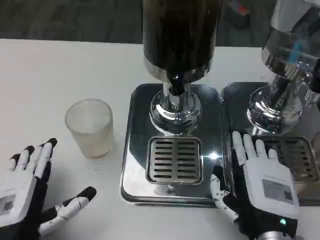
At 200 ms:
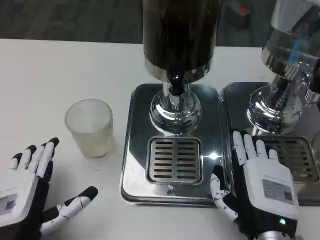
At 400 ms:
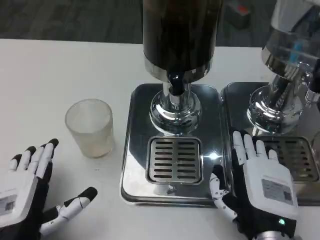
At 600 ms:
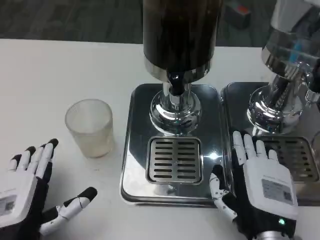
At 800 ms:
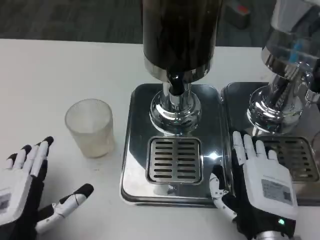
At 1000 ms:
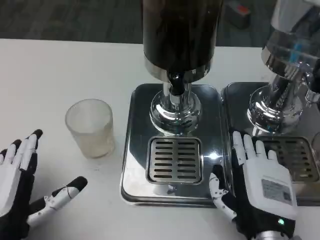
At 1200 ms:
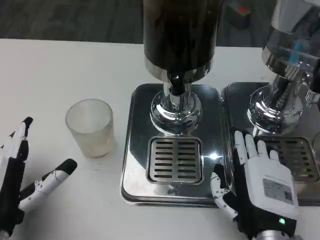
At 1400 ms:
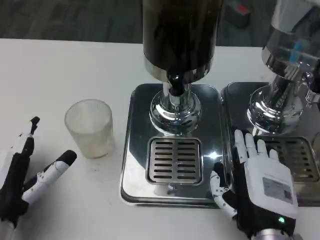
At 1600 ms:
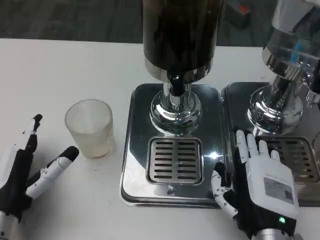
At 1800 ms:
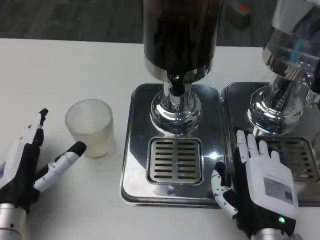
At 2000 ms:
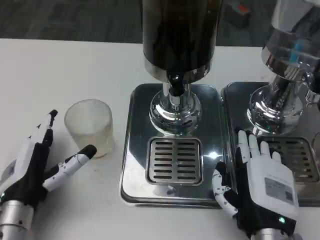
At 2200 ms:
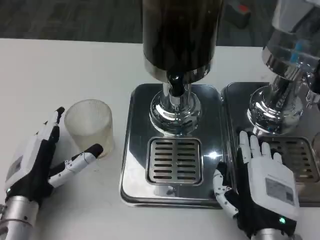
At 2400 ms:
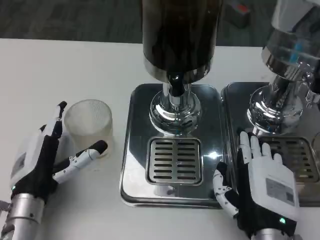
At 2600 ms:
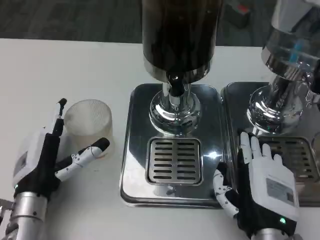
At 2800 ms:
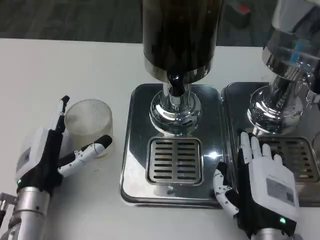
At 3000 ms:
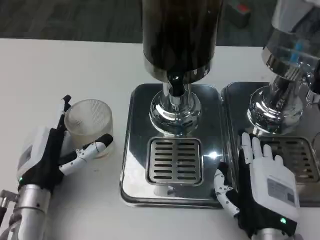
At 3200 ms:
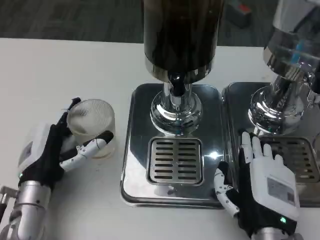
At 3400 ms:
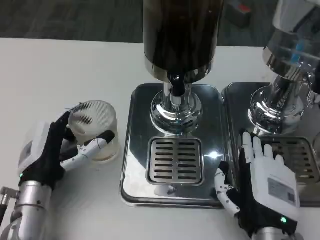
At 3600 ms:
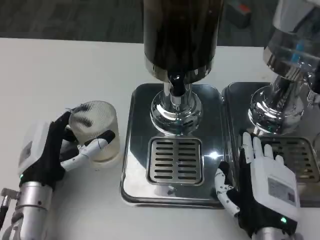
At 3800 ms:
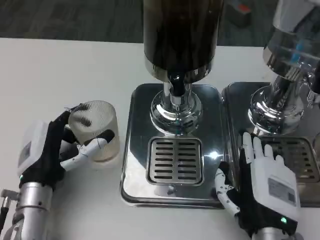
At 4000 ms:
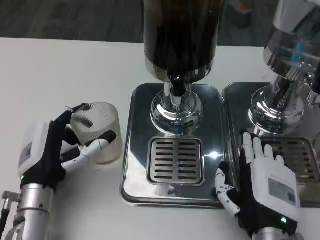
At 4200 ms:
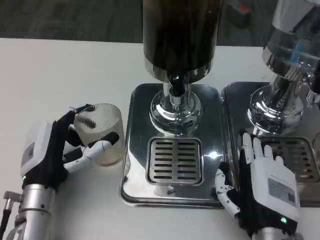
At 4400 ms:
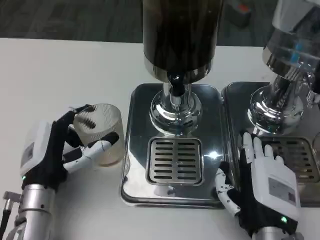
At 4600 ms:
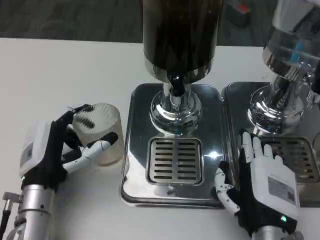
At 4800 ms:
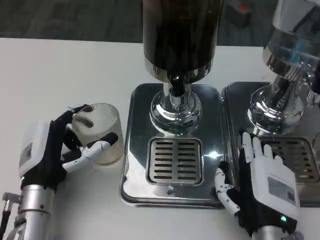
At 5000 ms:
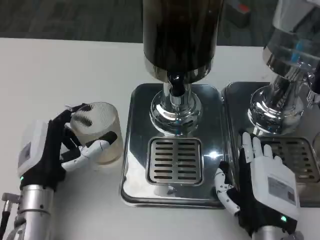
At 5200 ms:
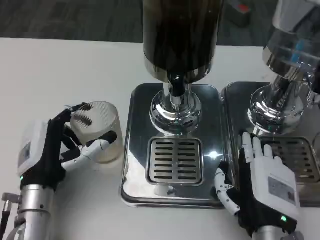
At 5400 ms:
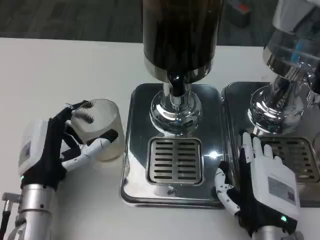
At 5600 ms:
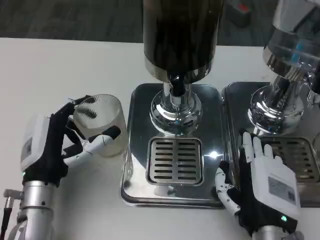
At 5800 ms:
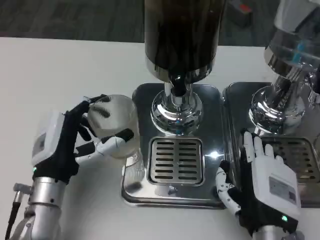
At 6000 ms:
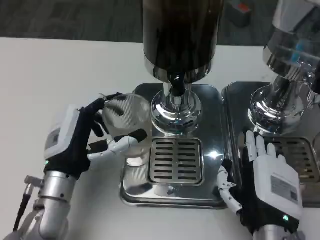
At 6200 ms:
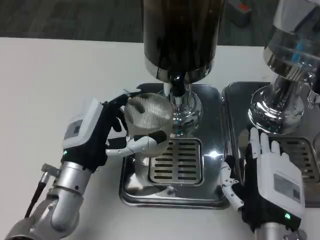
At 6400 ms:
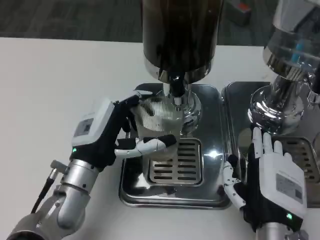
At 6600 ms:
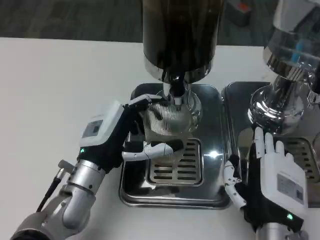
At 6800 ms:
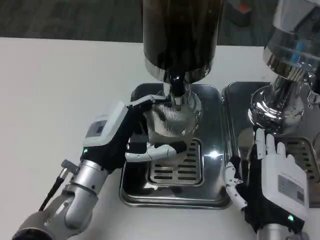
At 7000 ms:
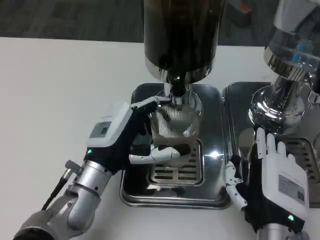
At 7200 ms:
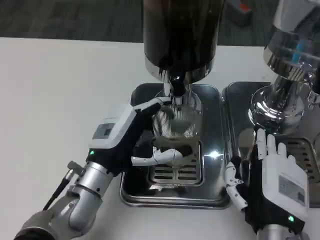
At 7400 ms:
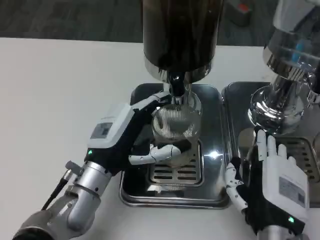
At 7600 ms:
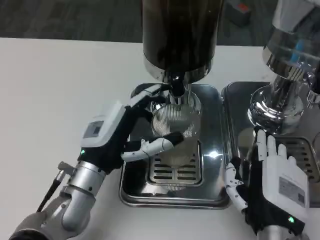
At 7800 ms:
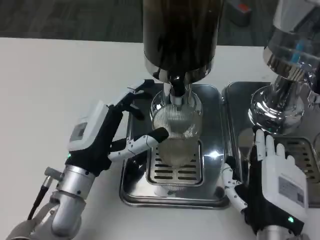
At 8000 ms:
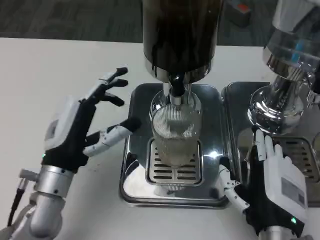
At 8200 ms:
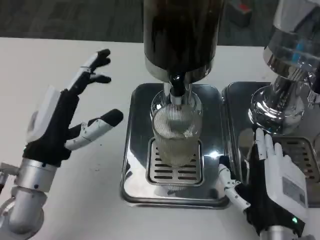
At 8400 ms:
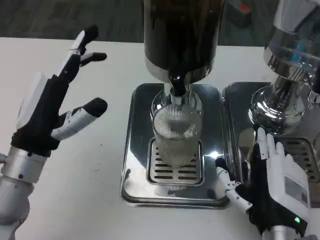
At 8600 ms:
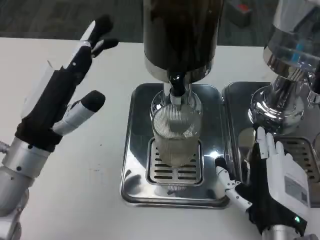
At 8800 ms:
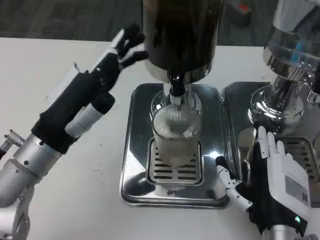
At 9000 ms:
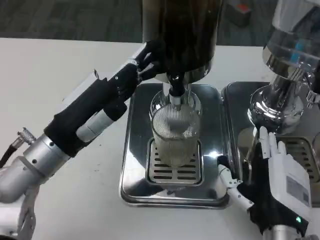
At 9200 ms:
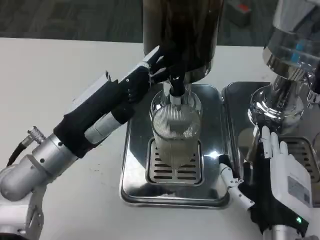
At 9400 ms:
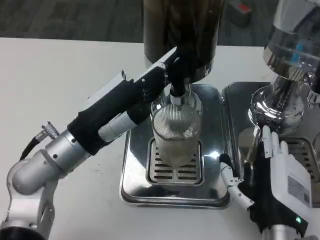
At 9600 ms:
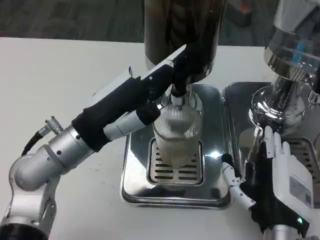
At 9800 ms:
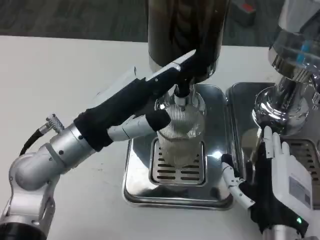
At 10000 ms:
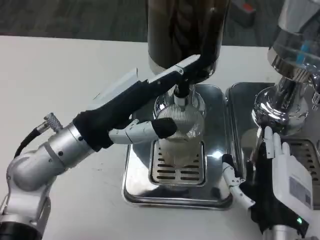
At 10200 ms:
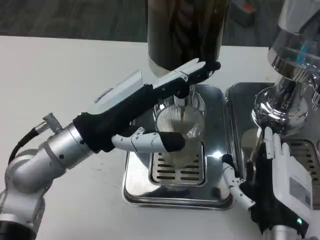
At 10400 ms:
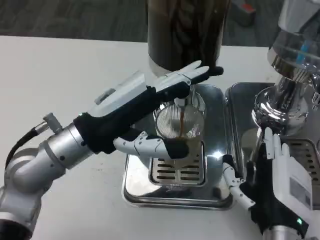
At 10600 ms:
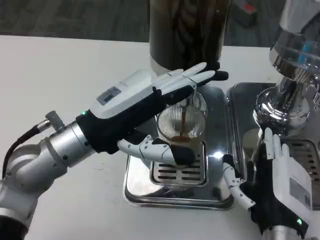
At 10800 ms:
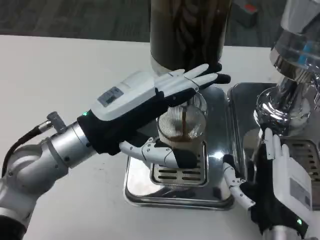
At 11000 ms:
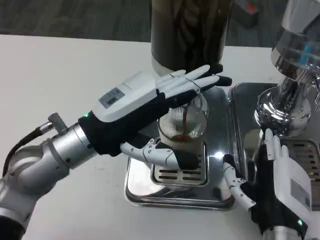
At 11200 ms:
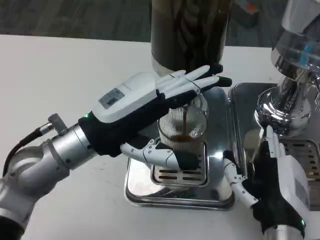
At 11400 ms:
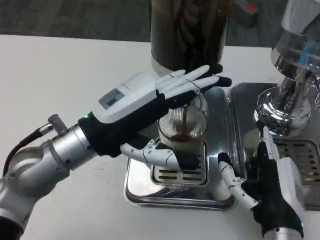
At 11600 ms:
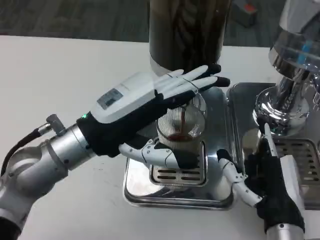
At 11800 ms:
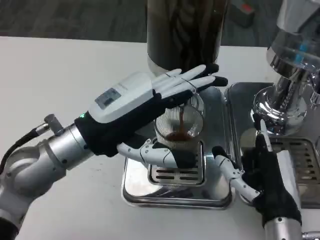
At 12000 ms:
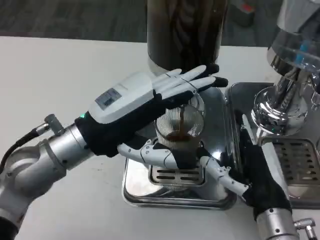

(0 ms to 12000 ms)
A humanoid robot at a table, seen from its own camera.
Task of the whole recording: Grasp the cup under the faucet to collect the drink, then remove the cup.
0 ms - 1600 ms: The left hand shifts by some 5 cm.
1600 ms - 3000 ms: The left hand ends up roughly 5 cm from where it was.
3000 ms - 4400 ms: The hands make only small movements.
7600 ms - 9000 ms: The left hand moves upward and to the left, approximately 10 cm.

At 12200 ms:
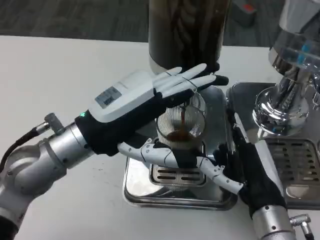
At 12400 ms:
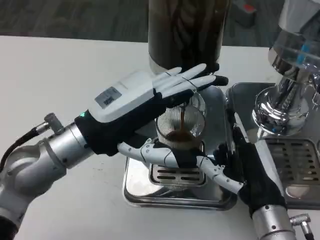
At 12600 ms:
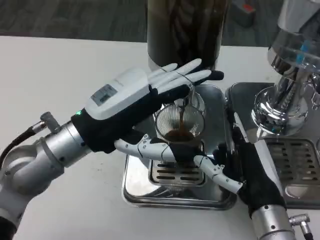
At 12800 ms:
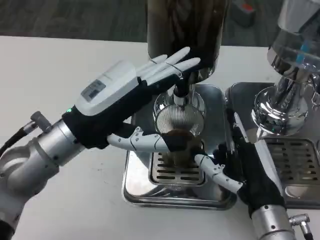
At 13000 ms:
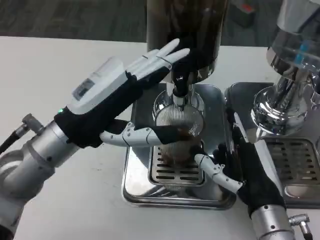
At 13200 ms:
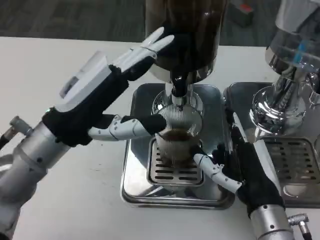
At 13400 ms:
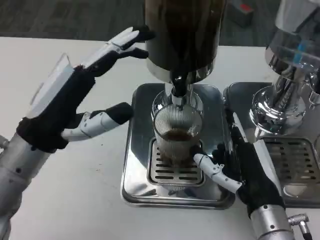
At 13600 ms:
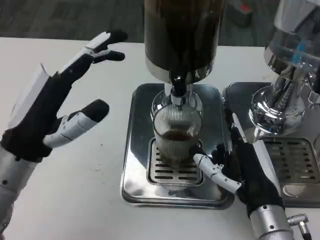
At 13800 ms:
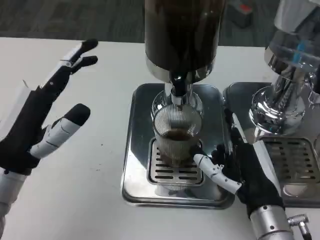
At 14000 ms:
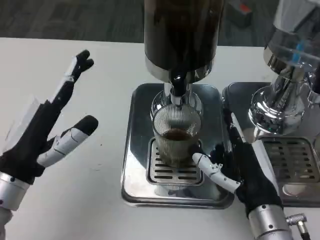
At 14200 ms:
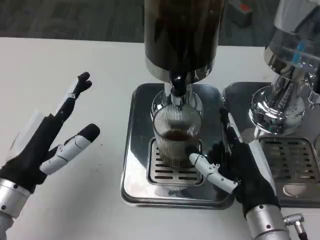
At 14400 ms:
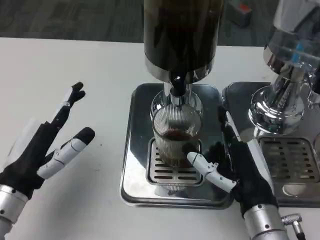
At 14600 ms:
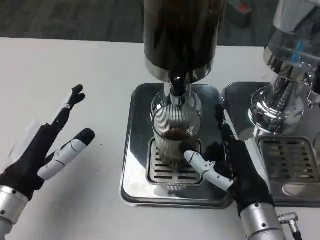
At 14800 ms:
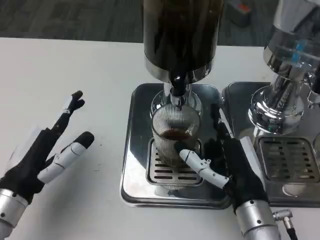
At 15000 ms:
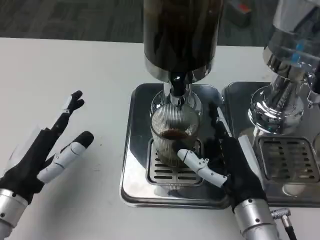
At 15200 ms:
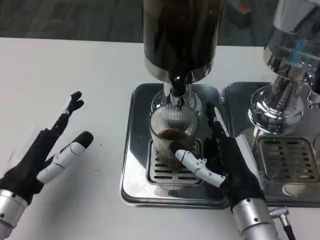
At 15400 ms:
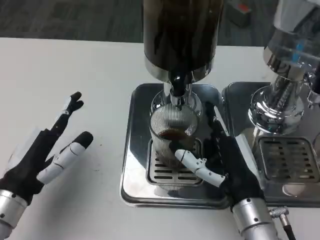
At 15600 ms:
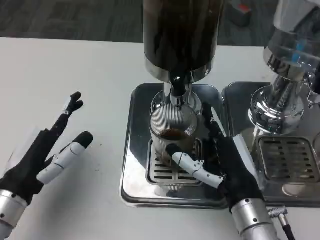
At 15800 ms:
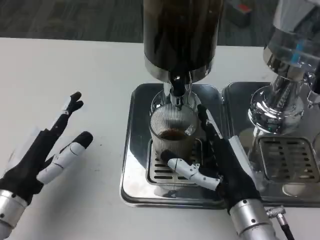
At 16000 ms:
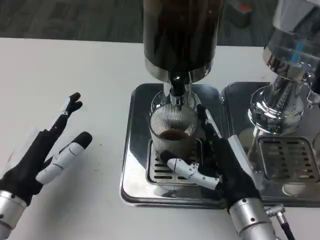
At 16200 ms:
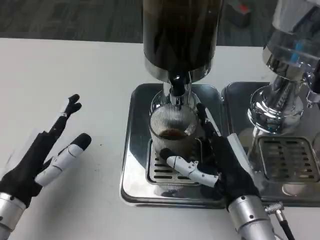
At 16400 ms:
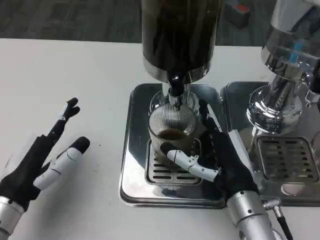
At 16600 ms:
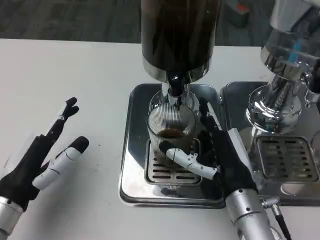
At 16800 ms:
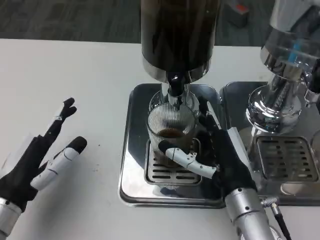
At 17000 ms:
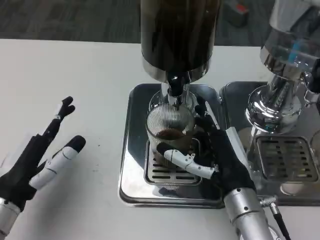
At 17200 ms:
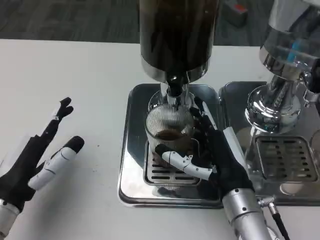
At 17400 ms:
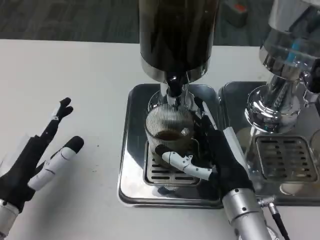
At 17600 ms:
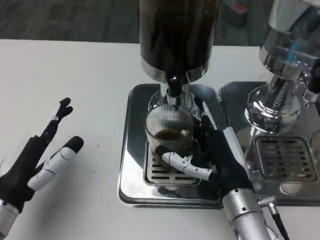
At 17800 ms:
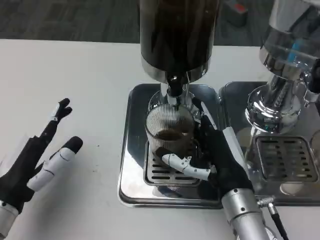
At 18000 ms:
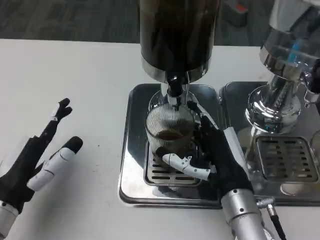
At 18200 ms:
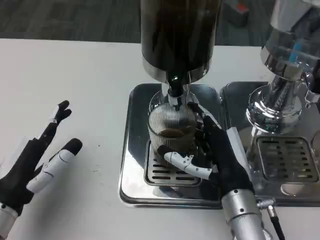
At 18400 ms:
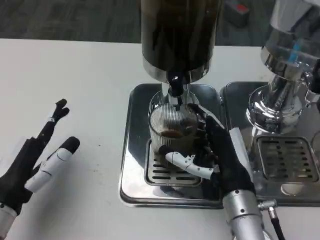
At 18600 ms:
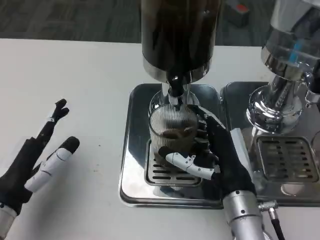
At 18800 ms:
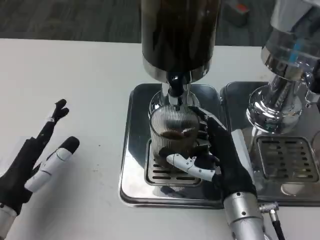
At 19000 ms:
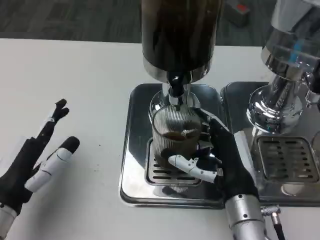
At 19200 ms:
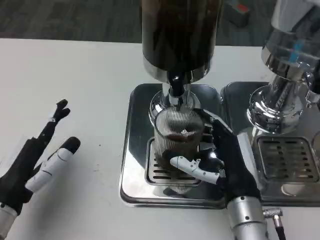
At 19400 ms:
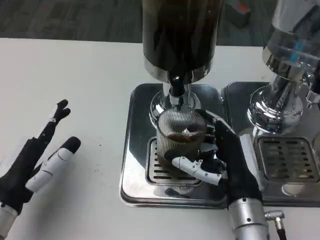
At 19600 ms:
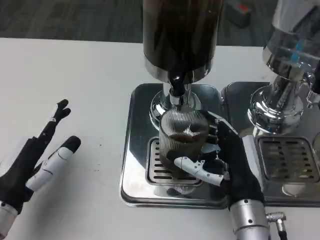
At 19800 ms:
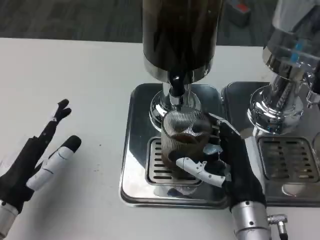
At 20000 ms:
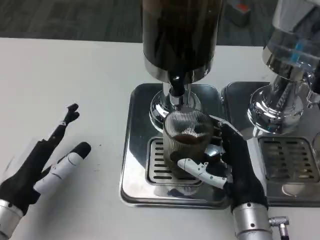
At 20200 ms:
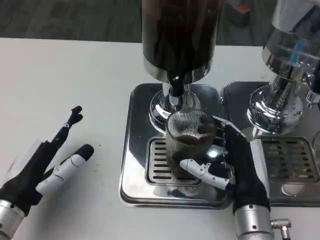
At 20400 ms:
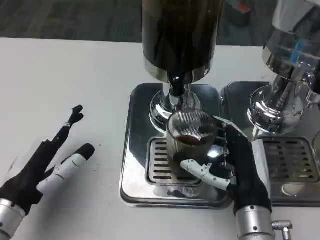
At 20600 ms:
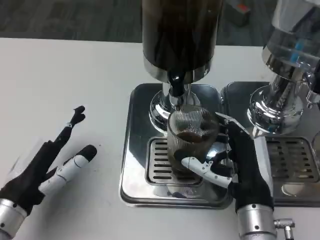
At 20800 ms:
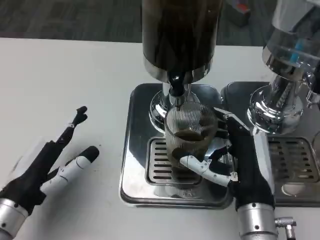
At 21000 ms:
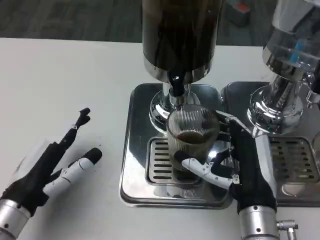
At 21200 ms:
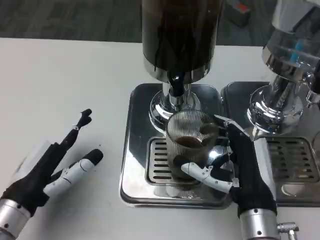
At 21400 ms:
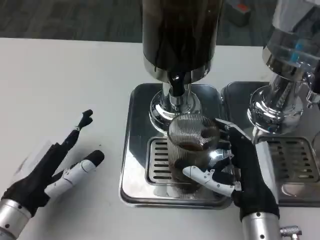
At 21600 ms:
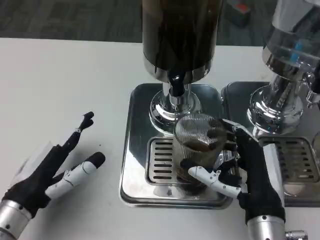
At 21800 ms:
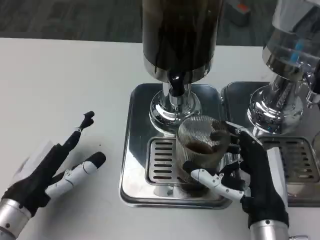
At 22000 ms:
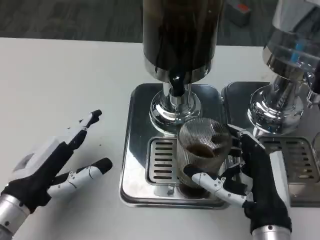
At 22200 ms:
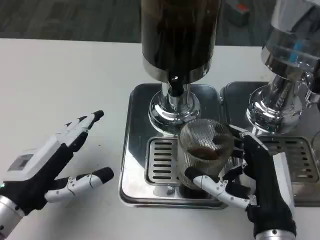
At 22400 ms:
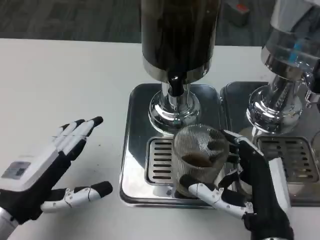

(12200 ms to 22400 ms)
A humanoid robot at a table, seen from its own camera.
Task of the whole recording: Grasp the cup under the faucet to collect the drink, then remove the cup.
12200 ms - 13600 ms: The left hand shifts approximately 5 cm to the left.
13600 ms - 15200 ms: The left hand shifts some 5 cm downward.
15200 ms - 16600 ms: The hands make only small movements.
16600 ms - 18000 ms: Both hands stay put.
18000 ms - 19400 ms: The hands stay close to where they were, moving slightly.
21000 ms - 22400 ms: The right hand moves some 5 cm.
